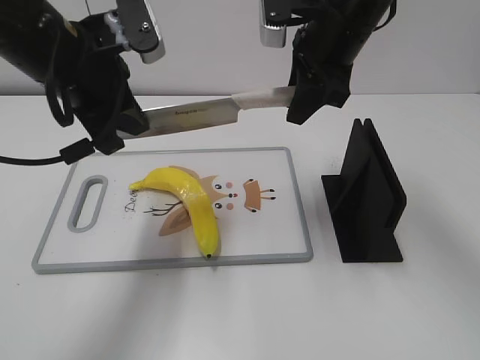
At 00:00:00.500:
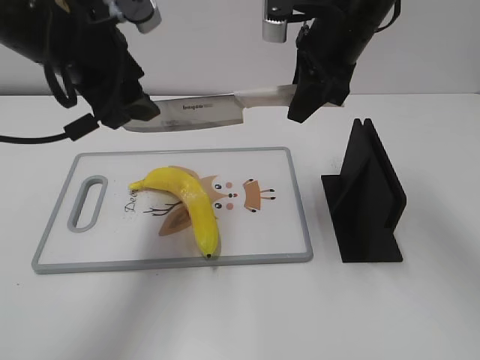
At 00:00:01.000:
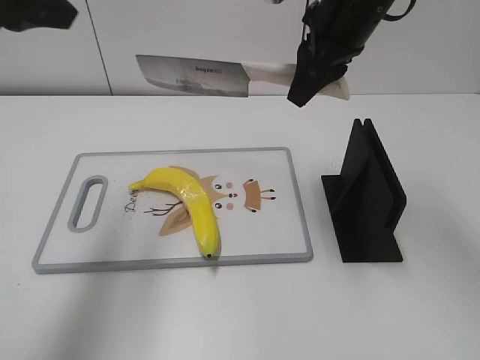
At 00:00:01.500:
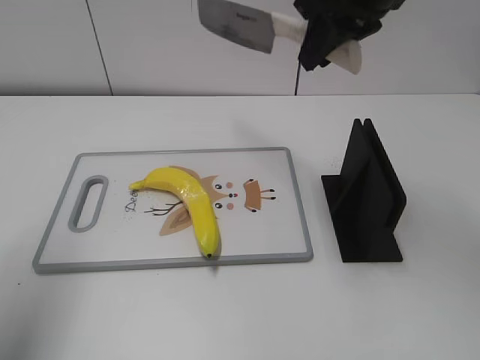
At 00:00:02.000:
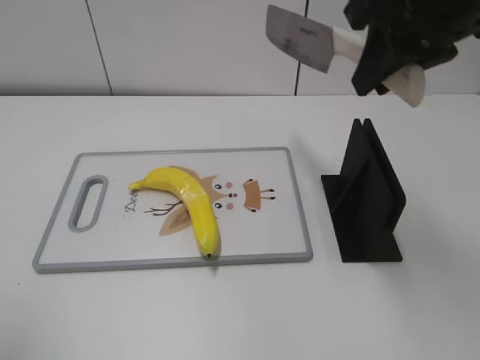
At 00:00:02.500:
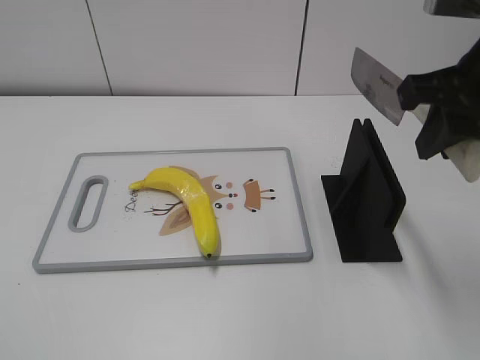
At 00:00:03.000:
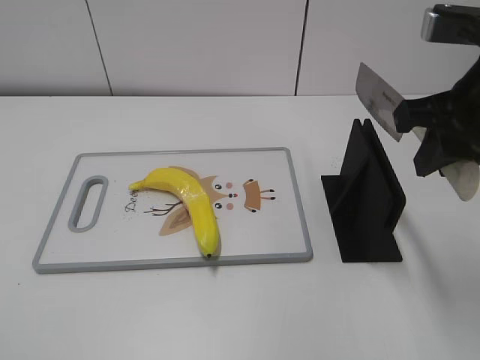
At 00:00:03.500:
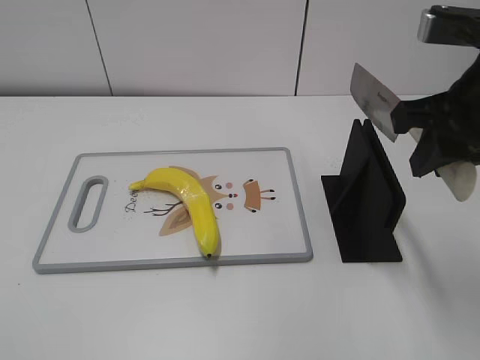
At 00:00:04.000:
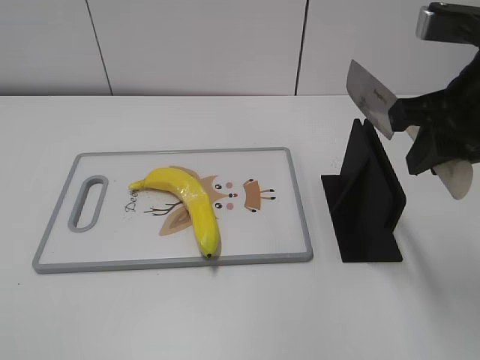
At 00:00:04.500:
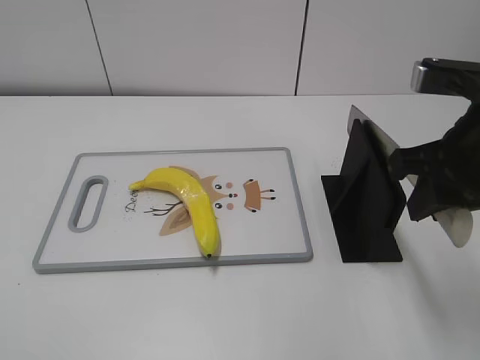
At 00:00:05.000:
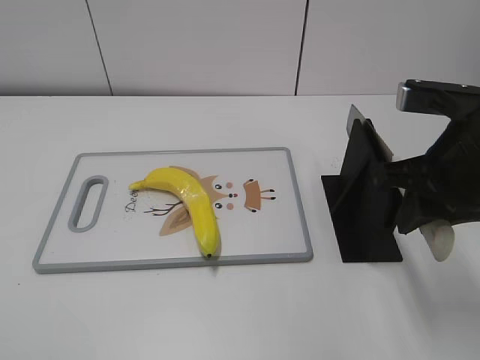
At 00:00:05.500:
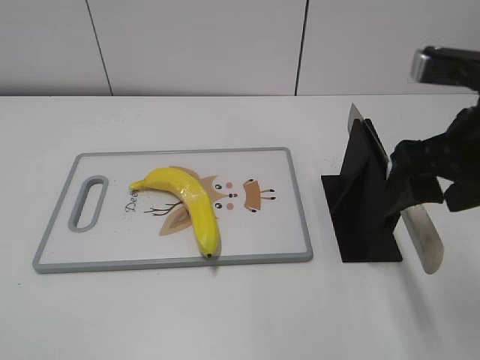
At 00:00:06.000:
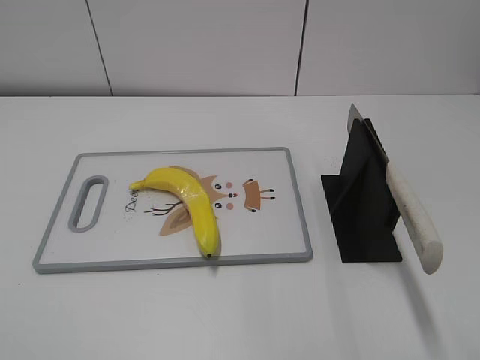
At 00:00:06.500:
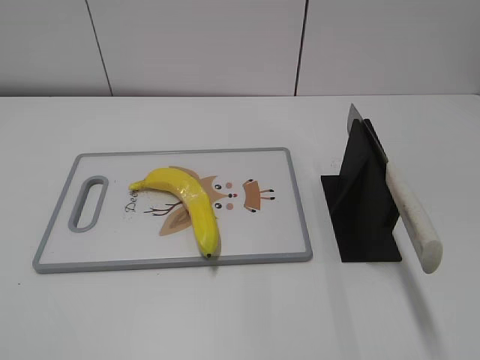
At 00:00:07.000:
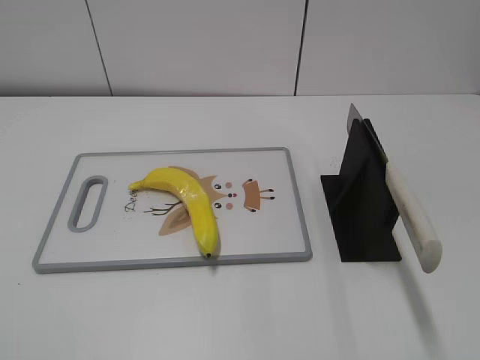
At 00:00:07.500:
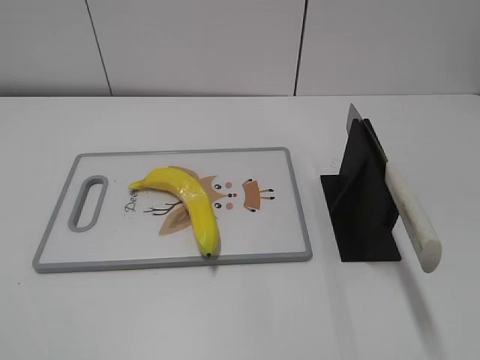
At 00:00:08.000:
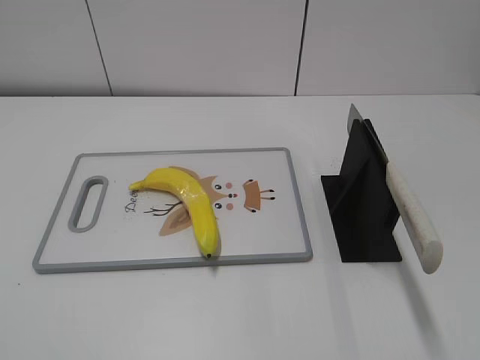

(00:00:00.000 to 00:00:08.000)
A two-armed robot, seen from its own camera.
Task of the whole recording: cut plastic banana.
Step, 00:00:00.000 - 00:00:01.500: Cut the banana with your right hand.
Step, 00:00:02.000 - 00:00:03.000: Lift the knife with your right hand.
Step, 00:00:03.500 - 00:00:08.000: Place the knife on the storage rack with your right hand.
00:00:00.000 - 00:00:02.000: The right gripper moves backward, upward and to the right, some 15 cm. The left gripper moves backward, to the left and upward, about 25 cm, and opens.
00:00:02.000 - 00:00:04.000: The right gripper heads downward, covering approximately 5 cm; the left gripper is displaced backward and downward by about 15 cm.
00:00:04.000 - 00:00:06.000: The right gripper is displaced backward by roughly 10 cm, and opens its fingers.
